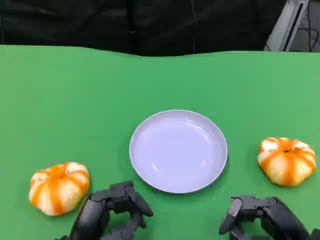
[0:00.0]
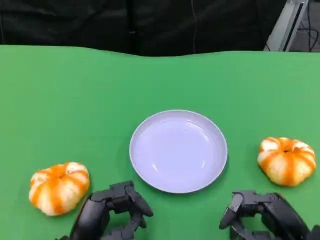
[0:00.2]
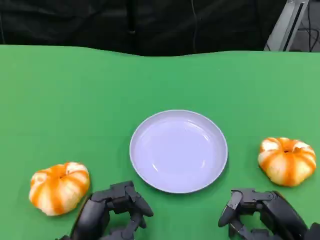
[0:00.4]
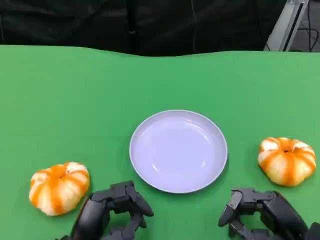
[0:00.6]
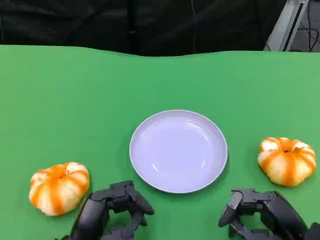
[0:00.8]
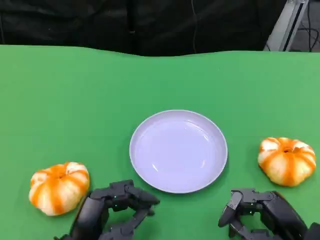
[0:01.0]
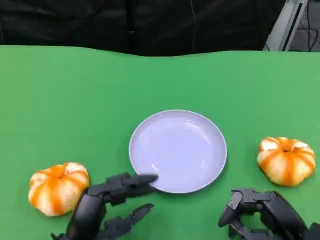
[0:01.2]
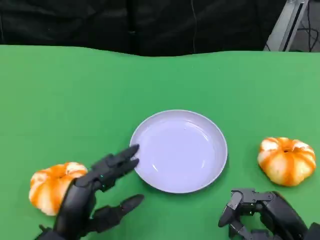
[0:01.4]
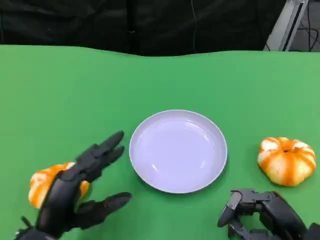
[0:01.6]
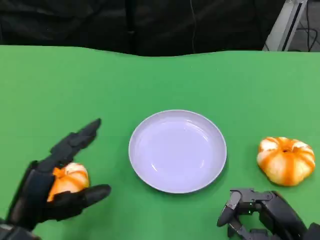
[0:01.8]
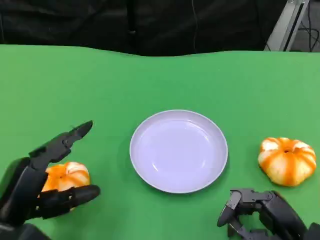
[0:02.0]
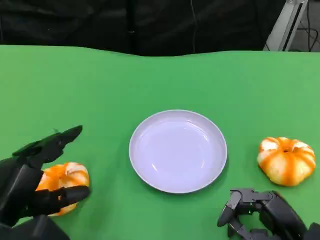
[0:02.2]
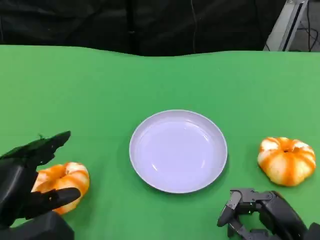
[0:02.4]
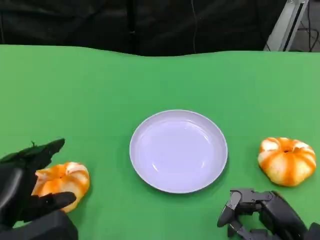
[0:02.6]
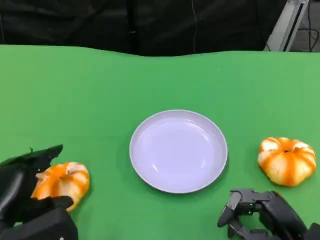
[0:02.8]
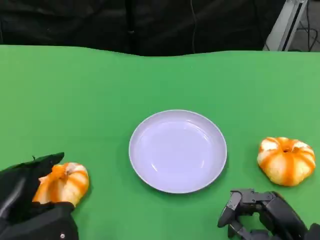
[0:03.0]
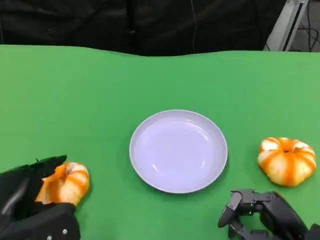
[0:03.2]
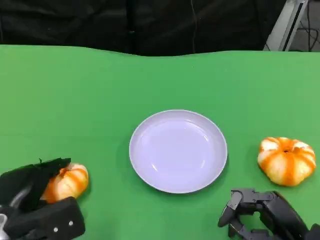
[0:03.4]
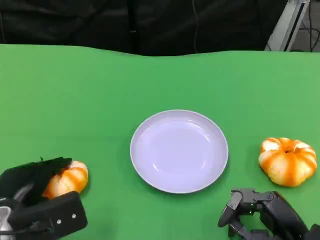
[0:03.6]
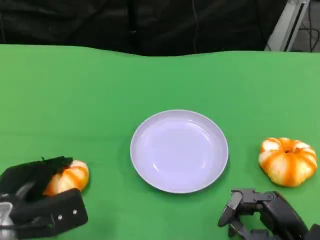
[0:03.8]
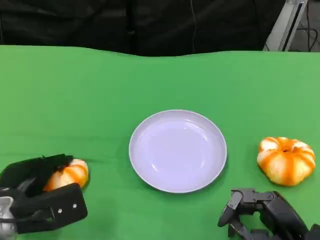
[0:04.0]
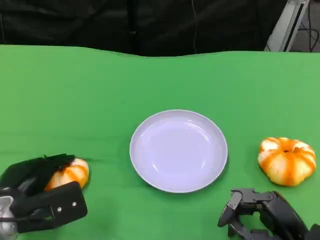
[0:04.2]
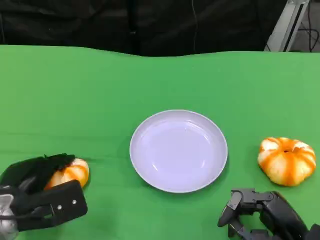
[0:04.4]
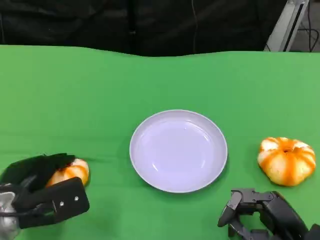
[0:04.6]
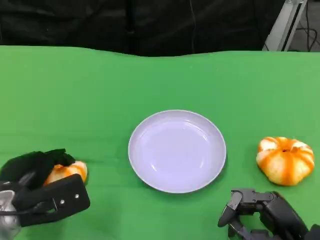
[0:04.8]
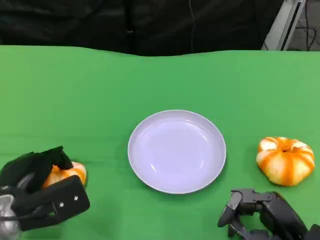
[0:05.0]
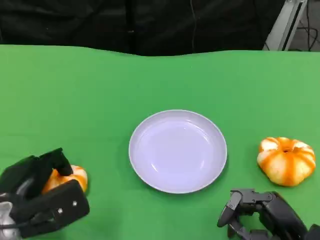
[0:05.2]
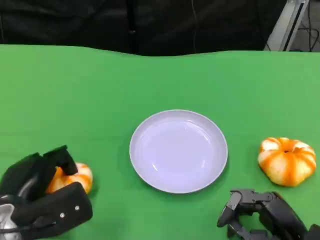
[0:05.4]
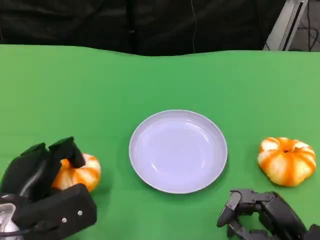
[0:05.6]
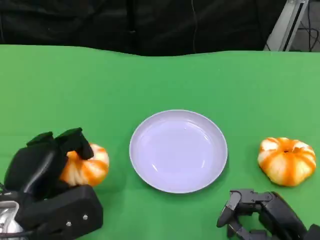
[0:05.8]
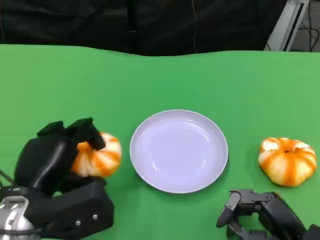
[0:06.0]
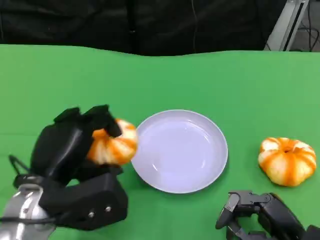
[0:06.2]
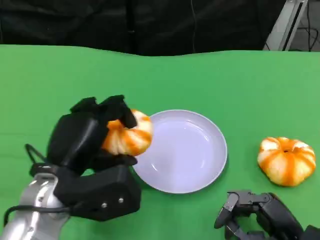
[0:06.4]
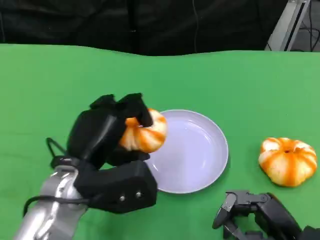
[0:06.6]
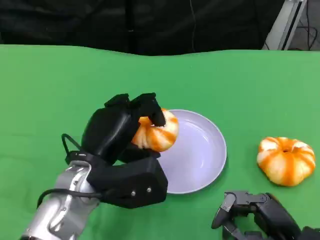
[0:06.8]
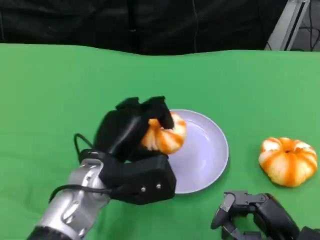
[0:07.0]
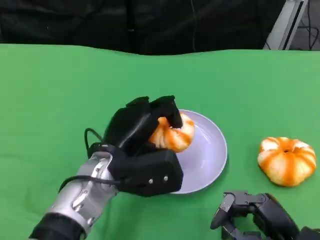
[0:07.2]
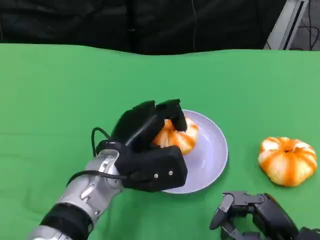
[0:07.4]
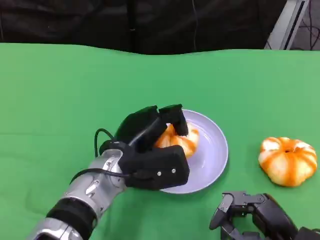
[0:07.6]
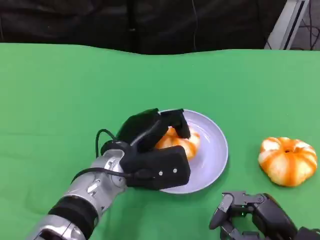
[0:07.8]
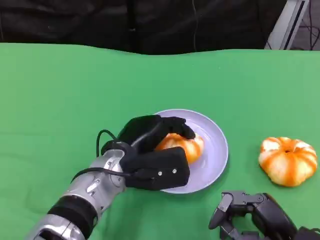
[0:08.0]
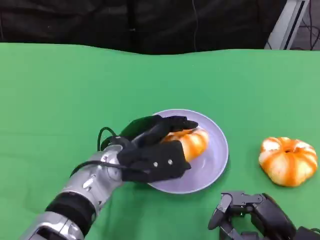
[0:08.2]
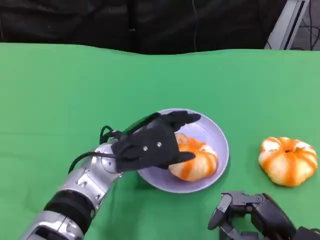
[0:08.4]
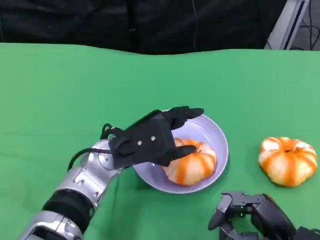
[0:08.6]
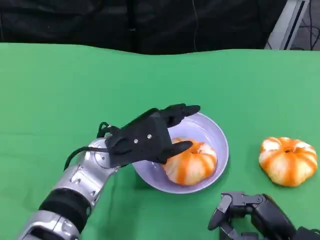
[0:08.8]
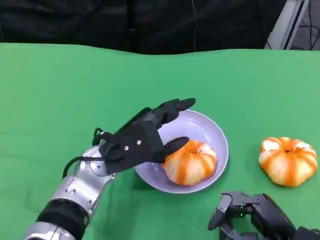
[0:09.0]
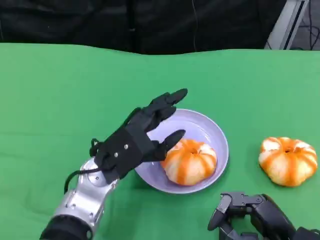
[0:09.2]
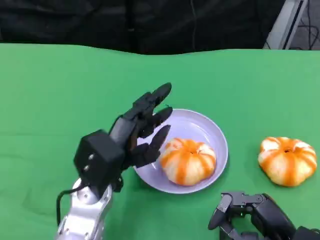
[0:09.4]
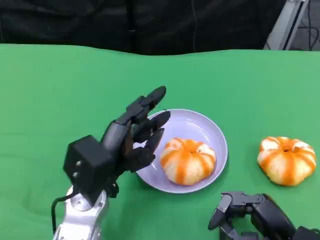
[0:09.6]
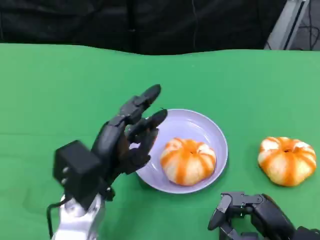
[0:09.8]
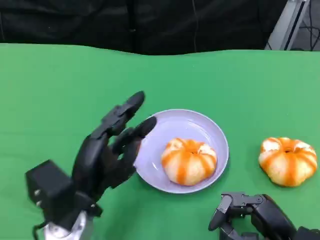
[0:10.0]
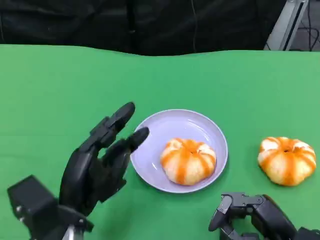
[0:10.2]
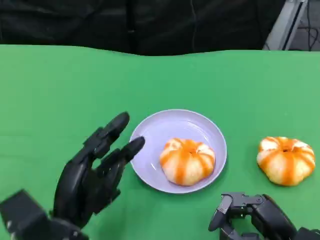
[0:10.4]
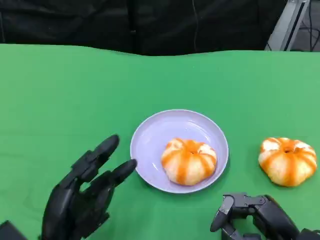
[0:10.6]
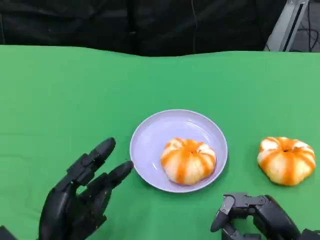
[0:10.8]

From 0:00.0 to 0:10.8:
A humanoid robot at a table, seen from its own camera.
Task of the whole recording: Grasp the bread from the table and place it into the plate.
From 0:00.0 to 0:01.6: The left hand shifts by approximately 5 cm.
From 0:01.6 to 0:03.0: The left hand travels to the left by some 5 cm.
From 0:03.0 to 0:04.6: The left hand heads forward, covering roughly 5 cm.
From 0:04.6 to 0:06.2: The left hand travels upward and to the right by some 10 cm.
From 0:06.2 to 0:07.8: The left hand goes some 10 cm to the right and forward.
From 0:09.2 to 0:10.8: The left hand shifts approximately 15 cm backward and to the left.

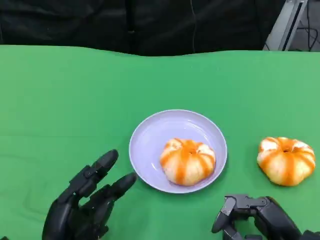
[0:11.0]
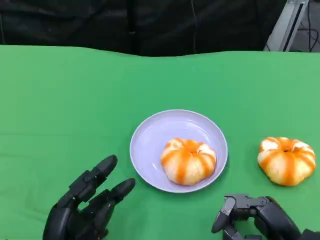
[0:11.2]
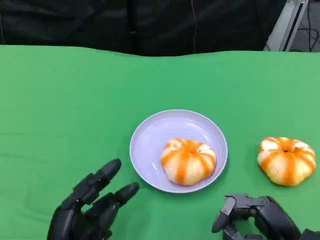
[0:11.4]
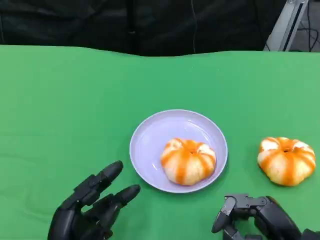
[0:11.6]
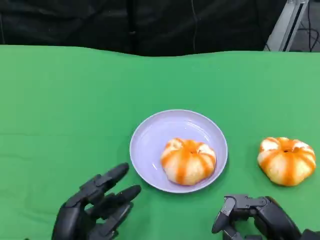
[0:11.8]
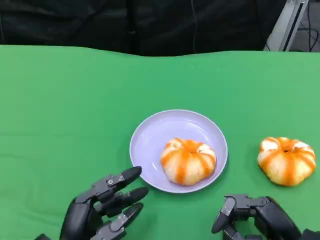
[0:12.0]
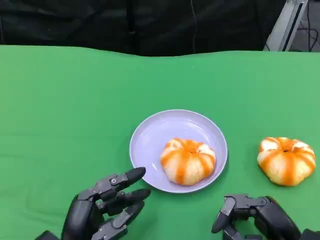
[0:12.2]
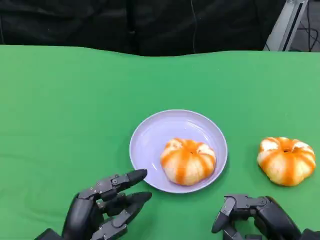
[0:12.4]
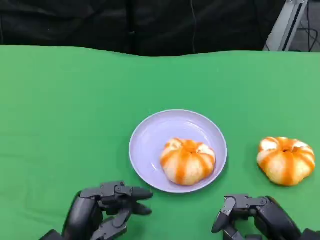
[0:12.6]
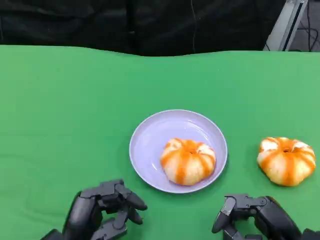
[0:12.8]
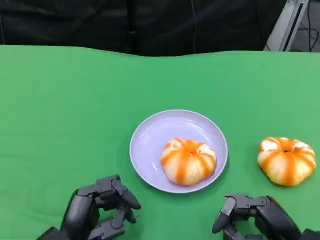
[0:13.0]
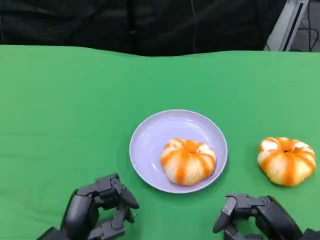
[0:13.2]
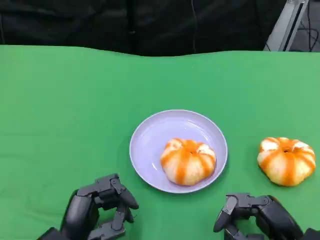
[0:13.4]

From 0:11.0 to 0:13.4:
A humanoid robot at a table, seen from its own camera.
Task of the whole recording: Grasp the bread from the table and place it into the plate.
From 0:11.0 to 0:13.4: The hands stay close to where they were, moving slightly.

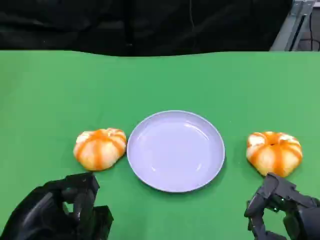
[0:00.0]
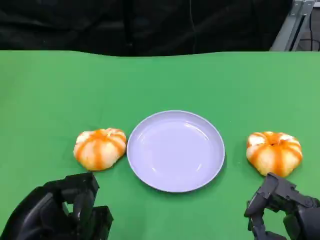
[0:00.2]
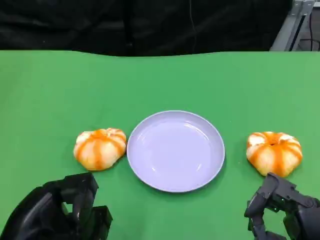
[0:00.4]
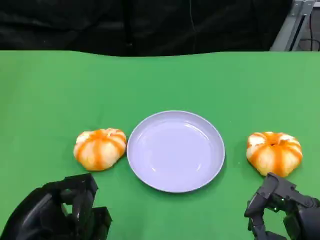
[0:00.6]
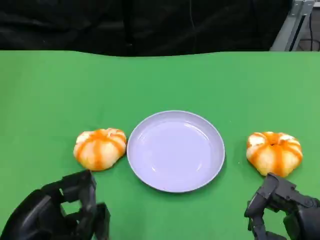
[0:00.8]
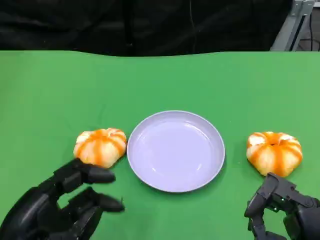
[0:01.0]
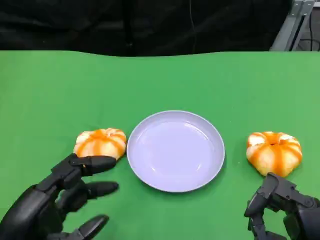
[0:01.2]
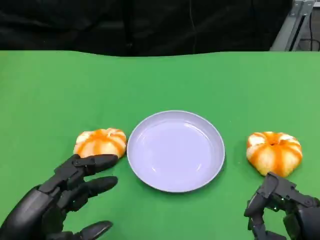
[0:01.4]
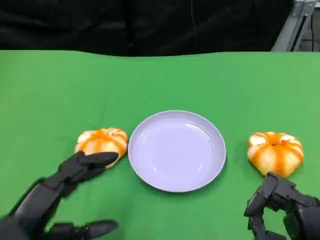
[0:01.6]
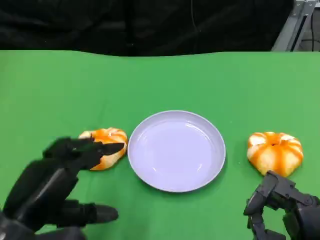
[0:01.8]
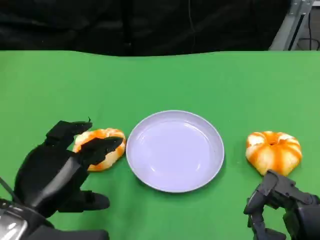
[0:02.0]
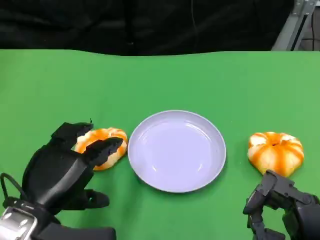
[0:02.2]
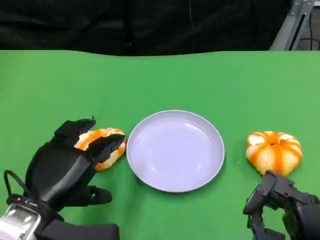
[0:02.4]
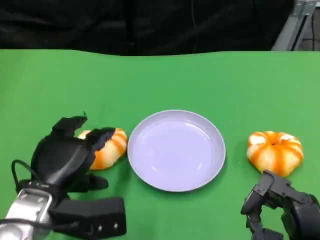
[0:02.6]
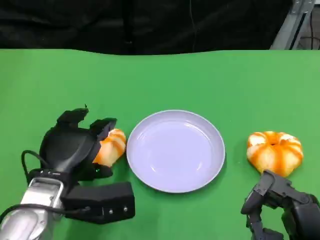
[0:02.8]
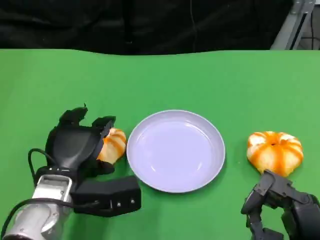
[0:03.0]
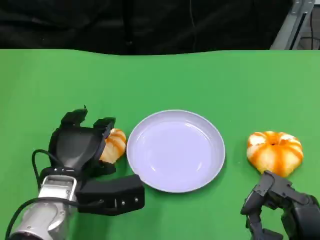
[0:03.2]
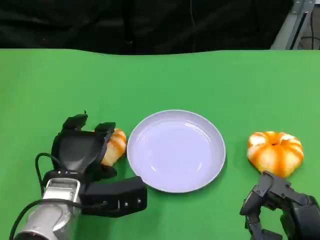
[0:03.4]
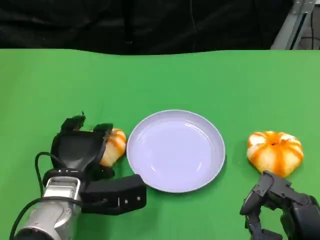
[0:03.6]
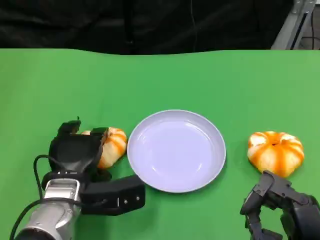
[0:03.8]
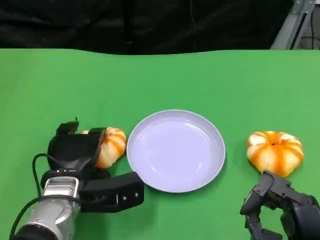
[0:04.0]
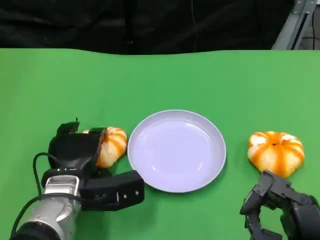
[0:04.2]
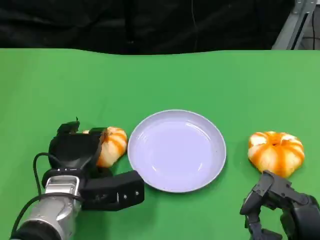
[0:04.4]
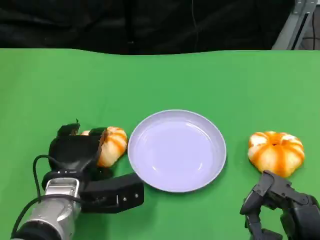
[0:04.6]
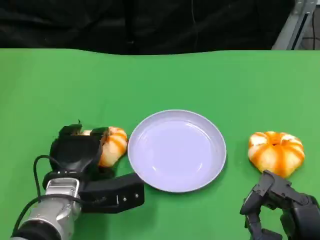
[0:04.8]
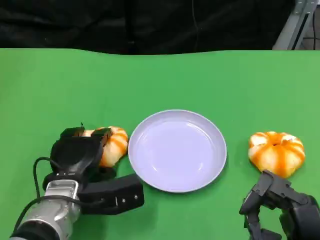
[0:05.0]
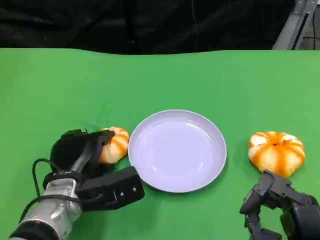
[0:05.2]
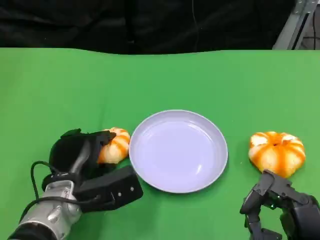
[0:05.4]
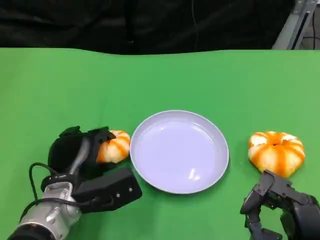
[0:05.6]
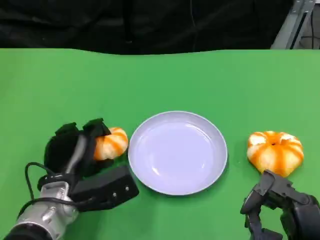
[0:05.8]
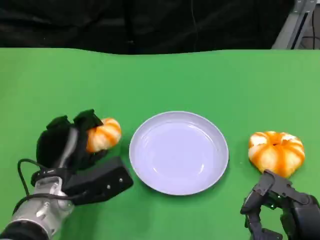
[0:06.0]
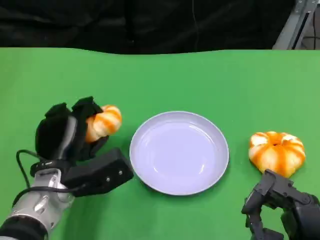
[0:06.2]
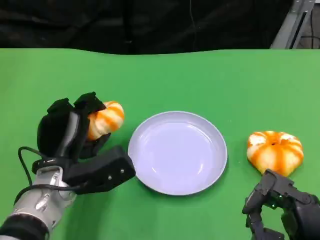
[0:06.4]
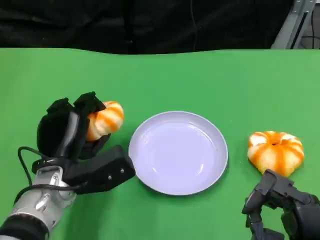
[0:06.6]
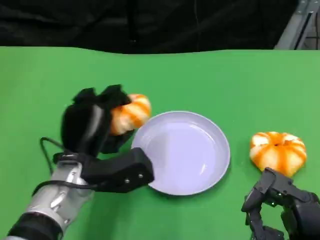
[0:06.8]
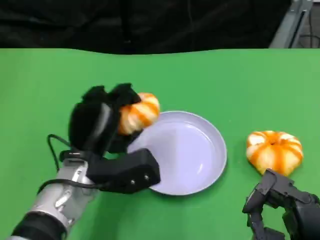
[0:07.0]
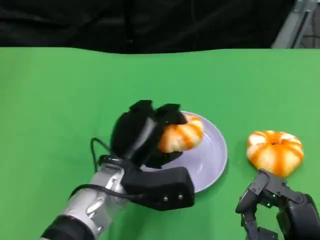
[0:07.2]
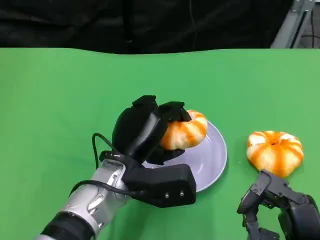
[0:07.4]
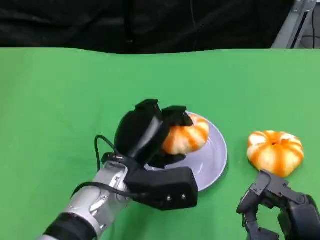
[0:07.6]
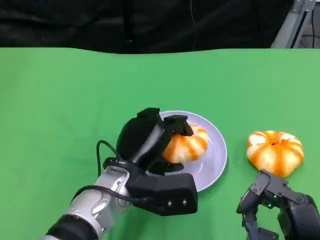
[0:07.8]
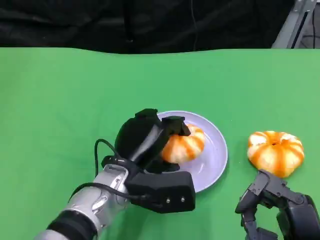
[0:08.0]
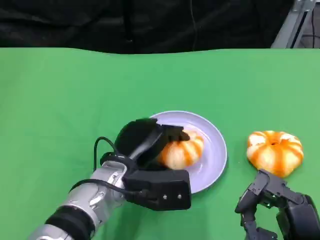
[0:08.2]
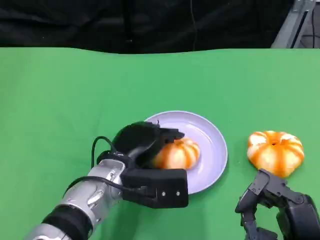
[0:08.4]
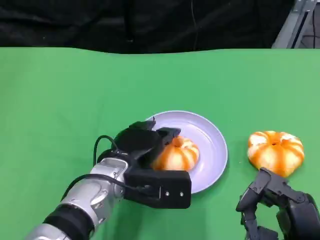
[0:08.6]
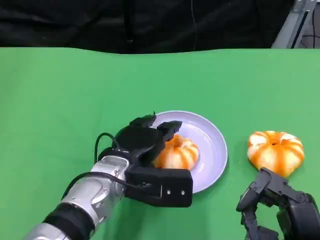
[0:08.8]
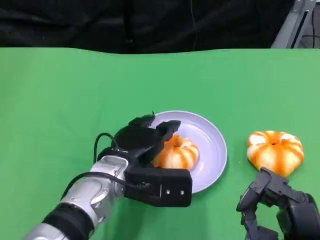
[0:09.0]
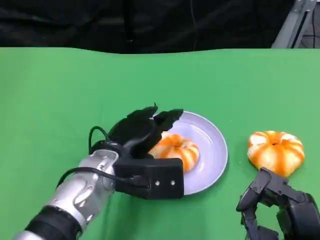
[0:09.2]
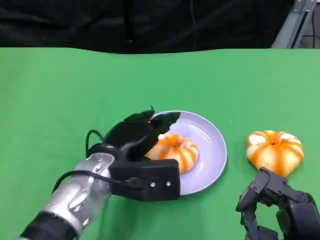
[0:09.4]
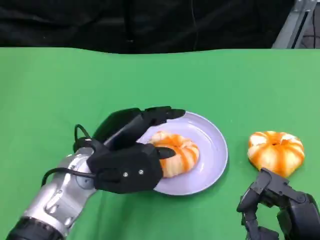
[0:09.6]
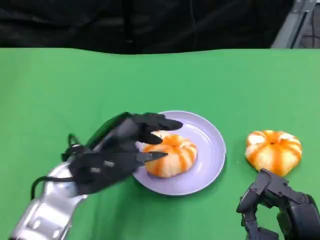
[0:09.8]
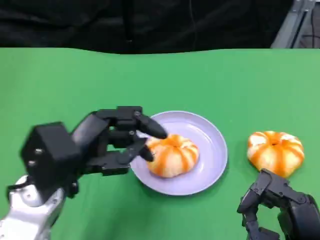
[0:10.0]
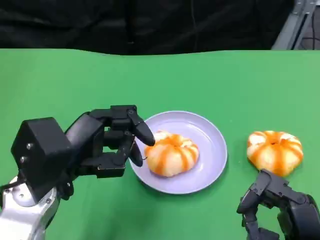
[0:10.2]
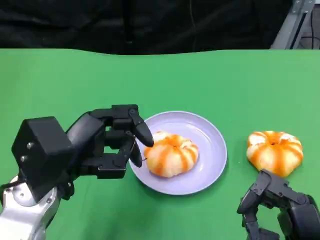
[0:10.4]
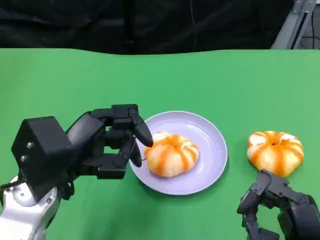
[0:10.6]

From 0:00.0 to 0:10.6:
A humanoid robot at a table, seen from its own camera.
Task of the whole recording: Grasp the bread from the table and place it into the plate.
From 0:01.6 to 0:03.0: The left hand goes some 15 cm forward, downward and to the right.
From 0:03.0 to 0:04.6: The hands stay close to where they were, moving slightly.
From 0:06.0 to 0:07.6: The left hand moves to the right, approximately 10 cm.
From 0:09.0 to 0:10.6: The left hand is displaced to the left and upward by some 10 cm.
